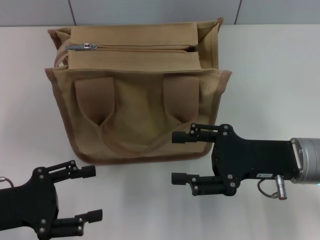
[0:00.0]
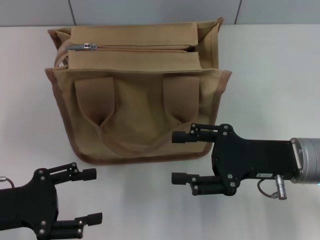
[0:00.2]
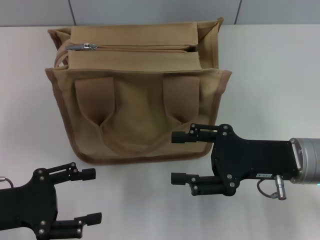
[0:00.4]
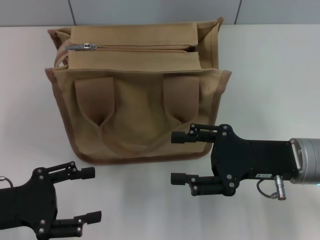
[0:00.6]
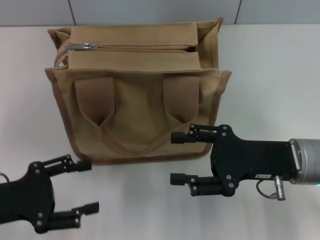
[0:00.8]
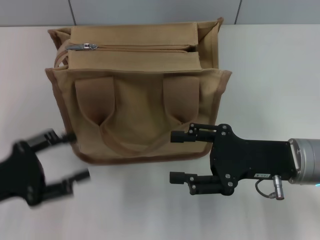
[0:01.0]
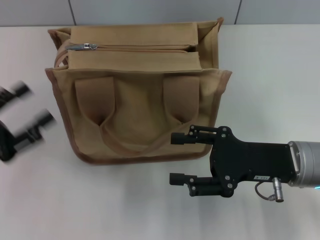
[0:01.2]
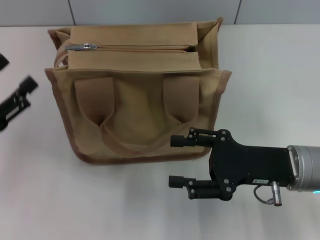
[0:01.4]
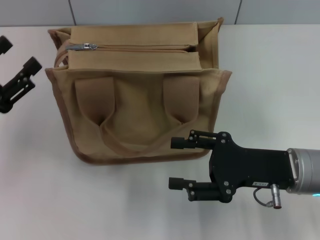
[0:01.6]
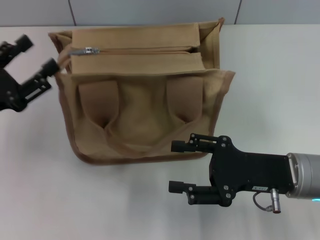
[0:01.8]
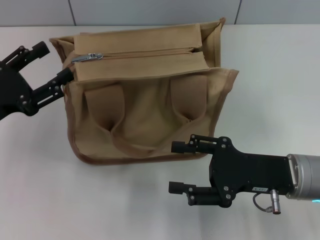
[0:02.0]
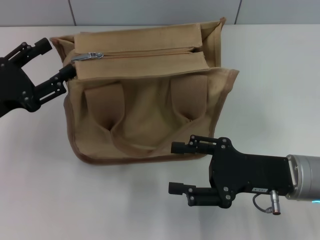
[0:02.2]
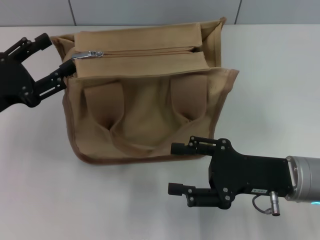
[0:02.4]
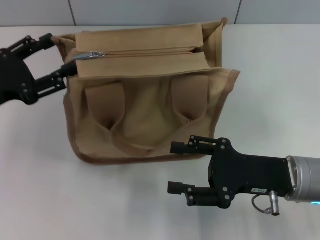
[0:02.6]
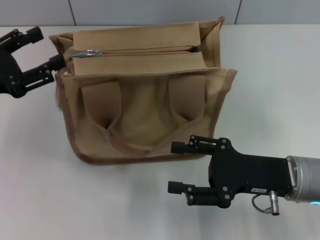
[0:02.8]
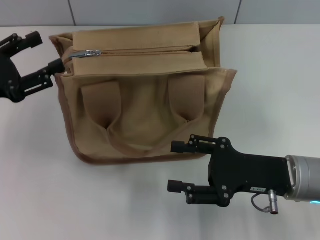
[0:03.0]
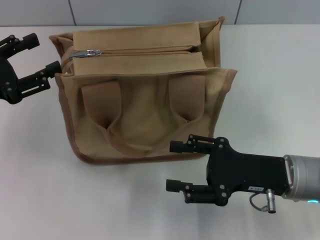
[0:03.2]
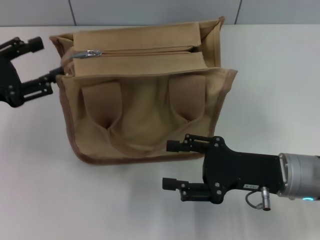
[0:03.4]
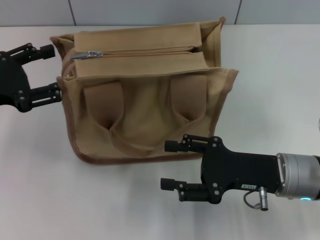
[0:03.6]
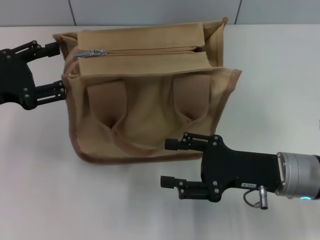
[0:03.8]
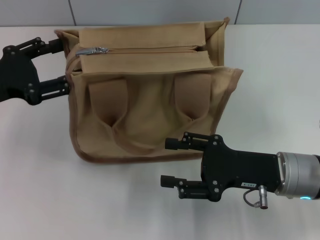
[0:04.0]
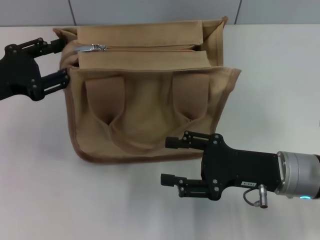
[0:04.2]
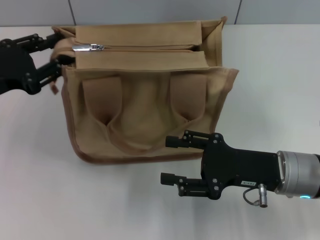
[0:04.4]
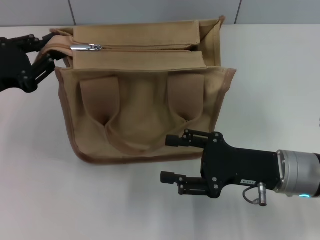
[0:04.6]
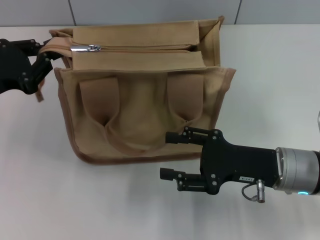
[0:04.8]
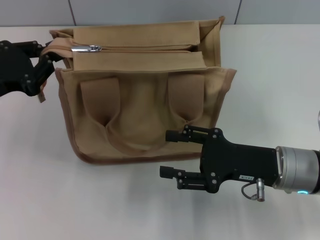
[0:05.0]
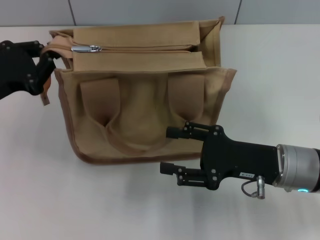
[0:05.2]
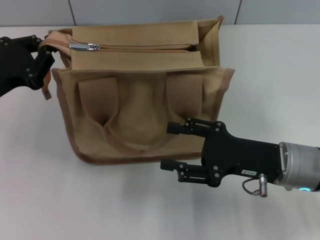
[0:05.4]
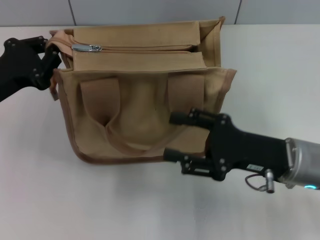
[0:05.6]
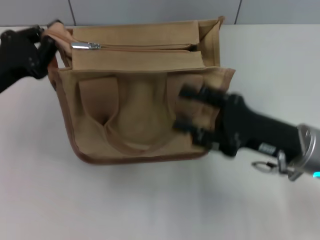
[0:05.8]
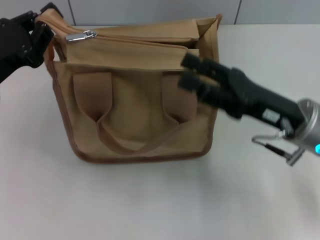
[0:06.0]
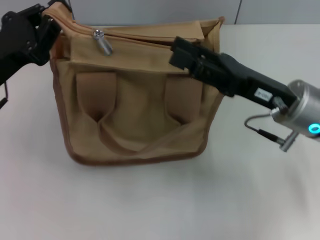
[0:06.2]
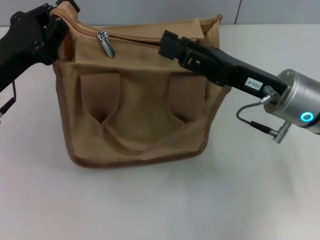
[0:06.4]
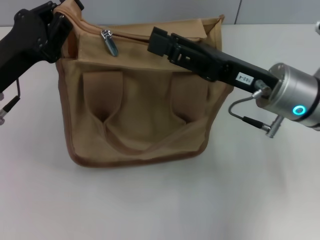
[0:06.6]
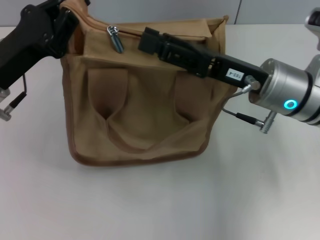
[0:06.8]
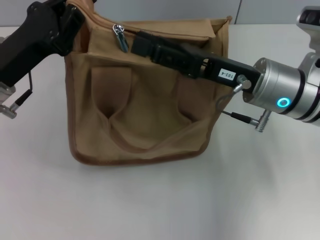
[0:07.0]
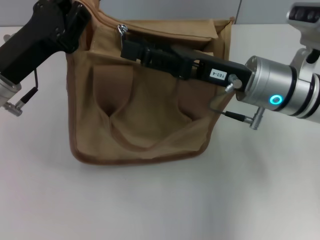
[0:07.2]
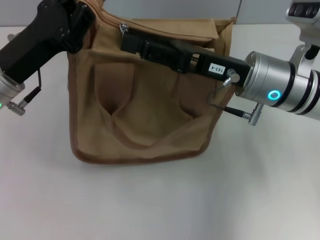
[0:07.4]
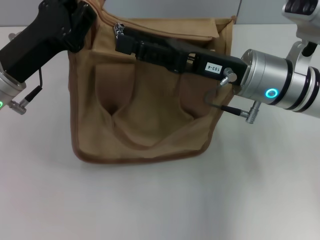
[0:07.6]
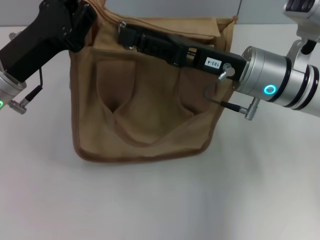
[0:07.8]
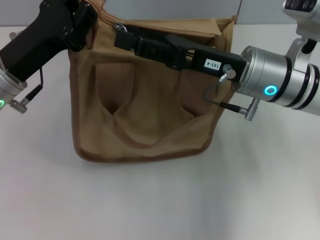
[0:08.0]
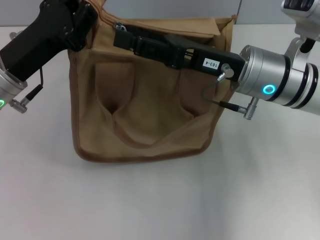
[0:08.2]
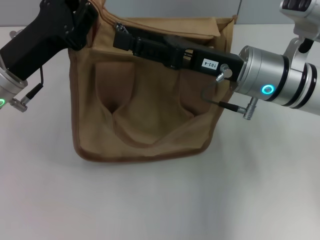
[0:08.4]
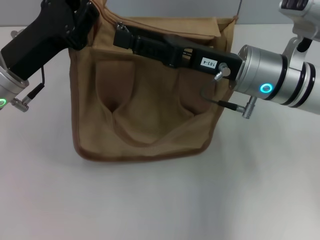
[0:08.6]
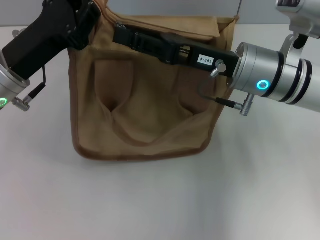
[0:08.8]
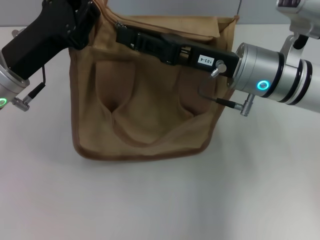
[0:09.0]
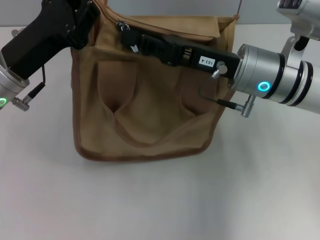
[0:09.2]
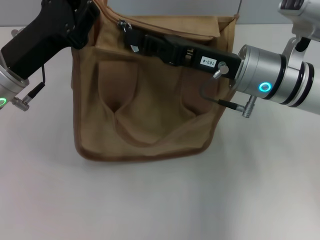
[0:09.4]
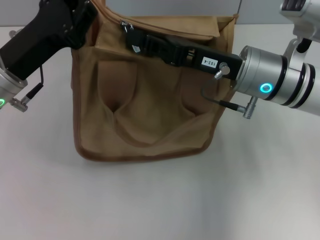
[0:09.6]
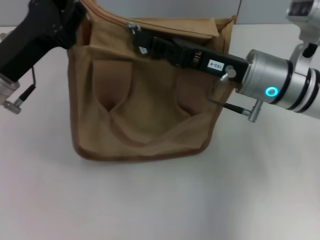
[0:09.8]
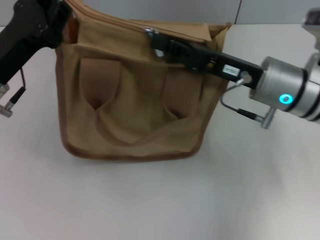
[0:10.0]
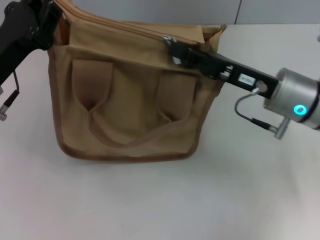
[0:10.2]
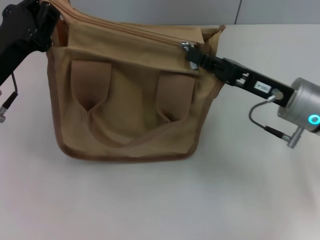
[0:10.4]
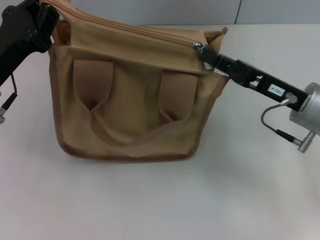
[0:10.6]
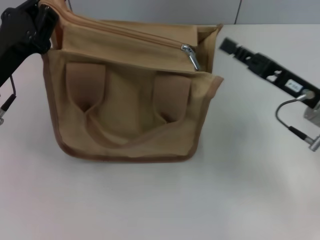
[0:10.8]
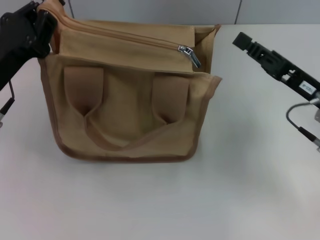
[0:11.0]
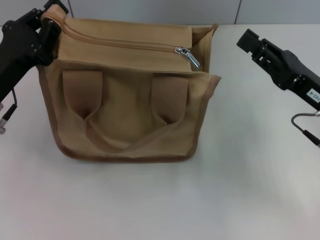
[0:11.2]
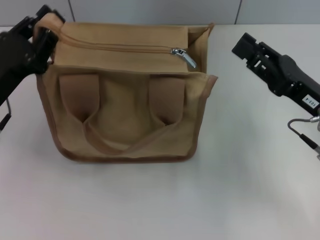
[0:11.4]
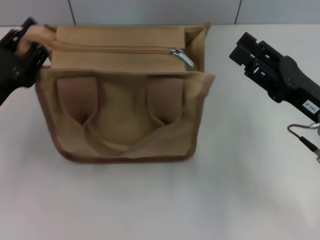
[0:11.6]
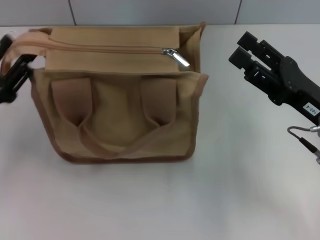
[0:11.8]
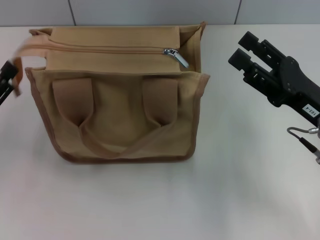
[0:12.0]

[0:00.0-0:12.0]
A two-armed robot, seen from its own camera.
Step, 0:00.0 to 0:11.0: Pull up the zipper with your right hand.
0:00.0 to 0:01.6: The left gripper moves about 5 cm.
0:01.6 to 0:03.0: The left gripper shifts by roughly 5 cm.
0:03.0 to 0:04.4: The grippers move only a little.
0:04.4 to 0:06.0: The right gripper shifts by some 5 cm. The left gripper closes.
0:06.0 to 0:07.6: The right gripper heads to the left and forward, covering about 10 cm, while the left gripper shifts by about 5 cm.
0:07.6 to 0:09.0: Both grippers stay put.
0:09.0 to 0:10.4: The right gripper goes approximately 5 cm to the right, and closes.
0:10.4 to 0:12.0: The right gripper shifts by approximately 5 cm, and opens up; the left gripper is displaced backward, to the left and downward by about 10 cm, and opens.

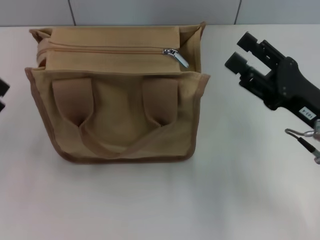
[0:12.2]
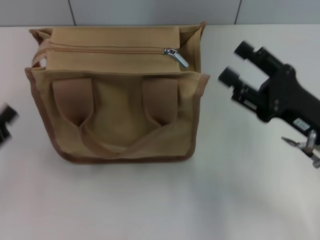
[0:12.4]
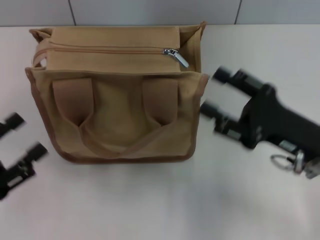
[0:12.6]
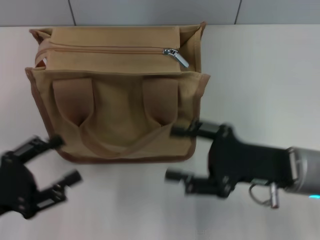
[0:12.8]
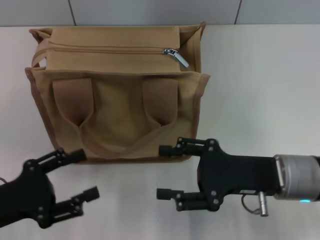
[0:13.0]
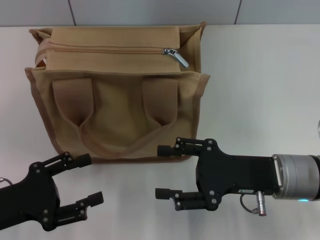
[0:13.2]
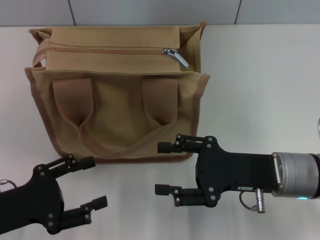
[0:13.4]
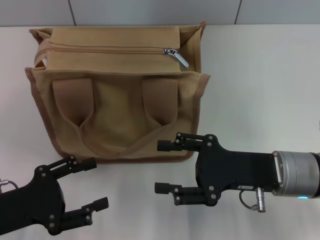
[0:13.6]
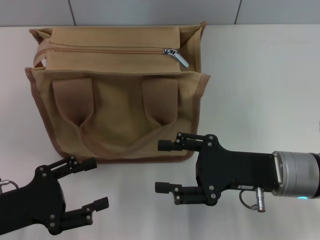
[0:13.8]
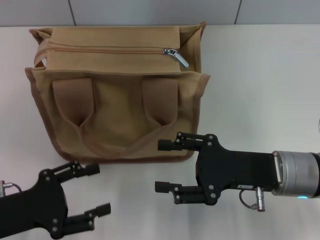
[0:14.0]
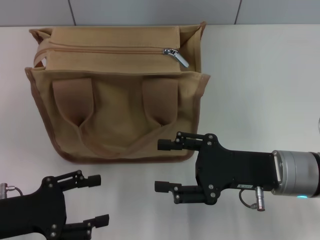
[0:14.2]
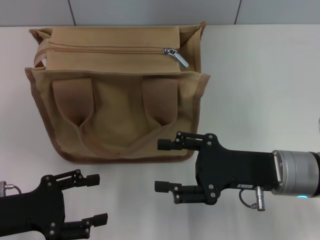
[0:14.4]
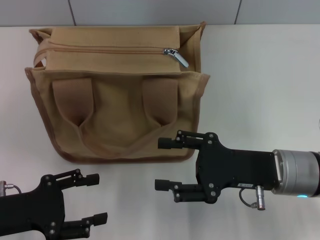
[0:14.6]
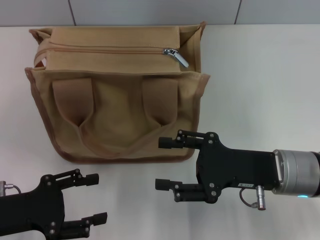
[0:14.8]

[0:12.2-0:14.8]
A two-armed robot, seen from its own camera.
0:12.2 to 0:13.4: The right gripper heads to the left, covering roughly 5 cm.
0:13.4 to 0:14.8: The grippers make only small movements.

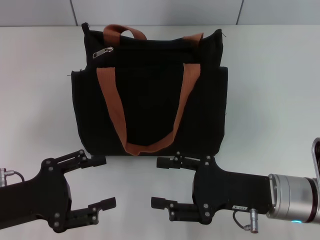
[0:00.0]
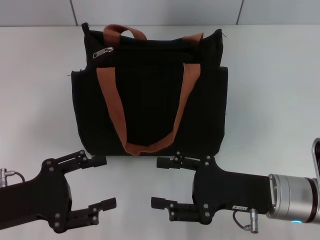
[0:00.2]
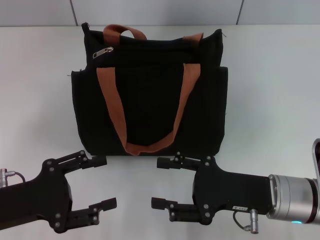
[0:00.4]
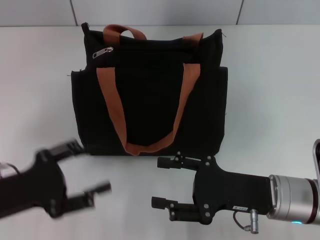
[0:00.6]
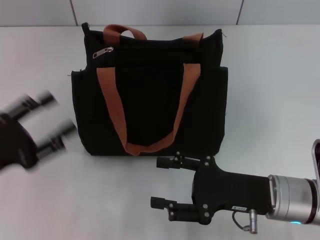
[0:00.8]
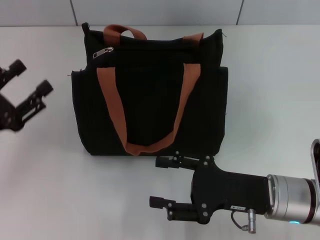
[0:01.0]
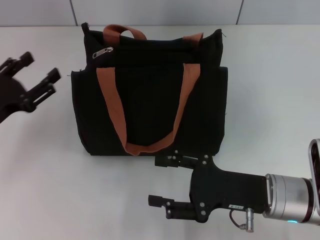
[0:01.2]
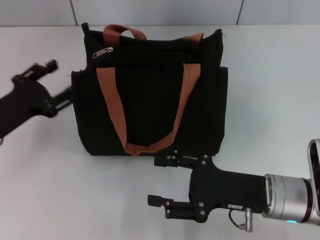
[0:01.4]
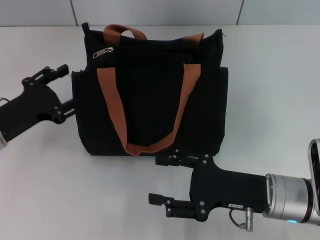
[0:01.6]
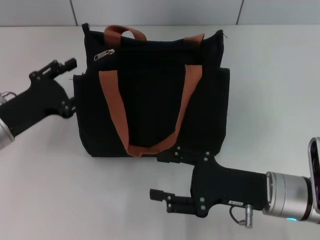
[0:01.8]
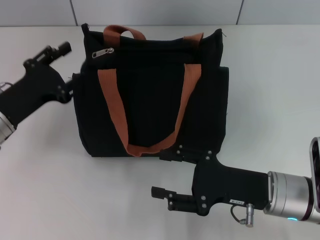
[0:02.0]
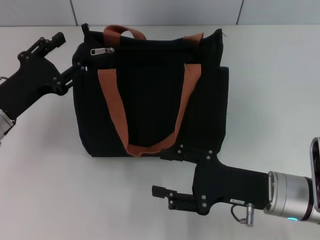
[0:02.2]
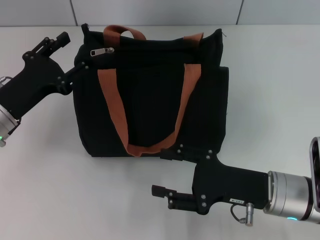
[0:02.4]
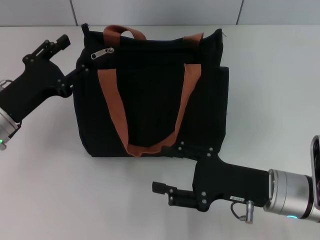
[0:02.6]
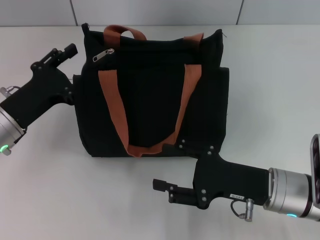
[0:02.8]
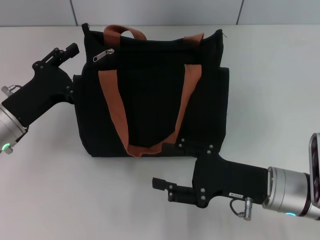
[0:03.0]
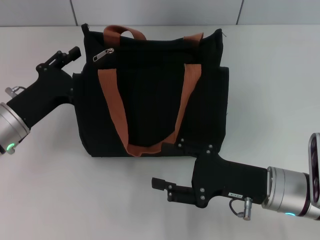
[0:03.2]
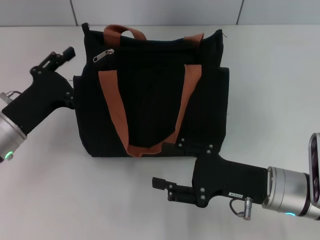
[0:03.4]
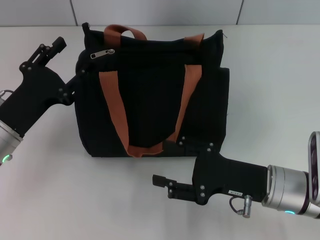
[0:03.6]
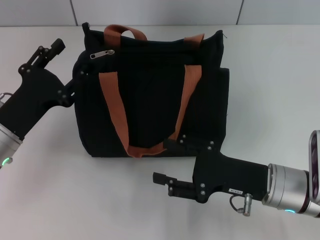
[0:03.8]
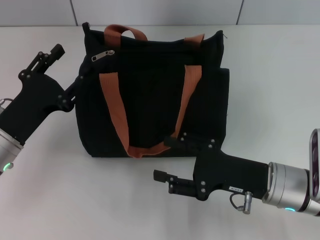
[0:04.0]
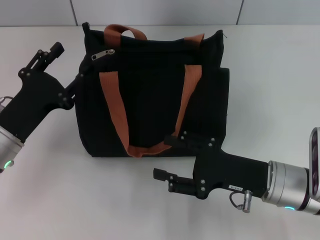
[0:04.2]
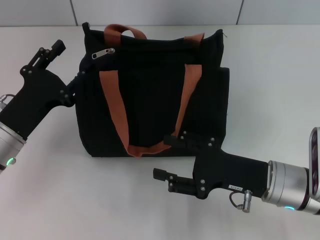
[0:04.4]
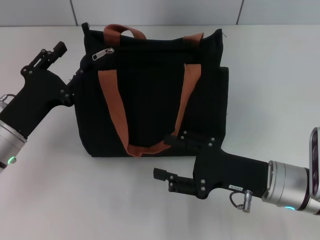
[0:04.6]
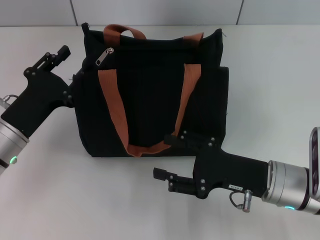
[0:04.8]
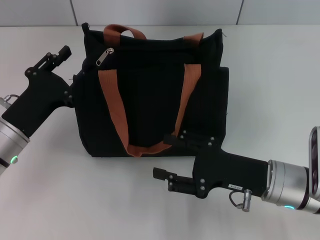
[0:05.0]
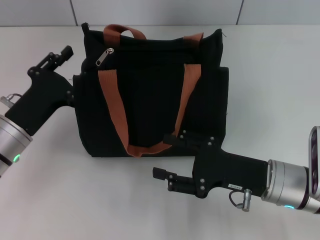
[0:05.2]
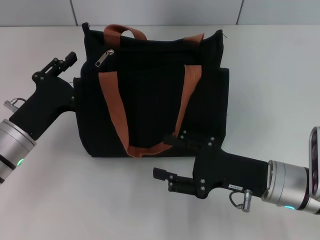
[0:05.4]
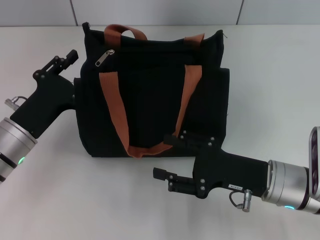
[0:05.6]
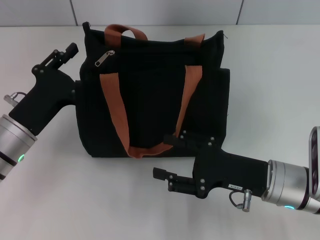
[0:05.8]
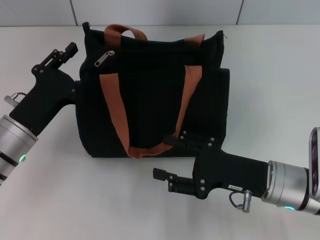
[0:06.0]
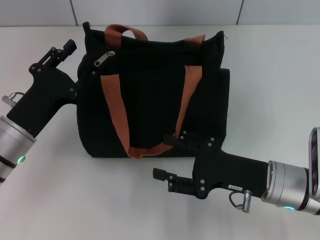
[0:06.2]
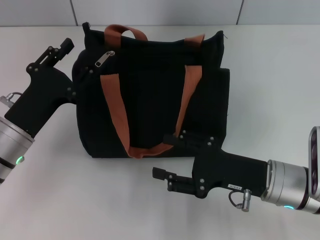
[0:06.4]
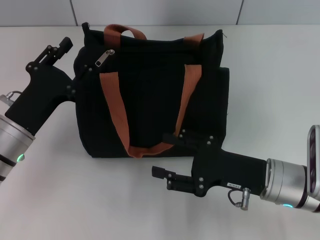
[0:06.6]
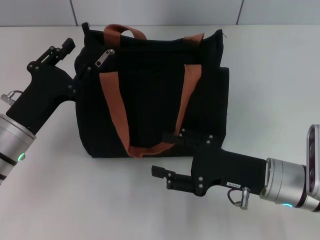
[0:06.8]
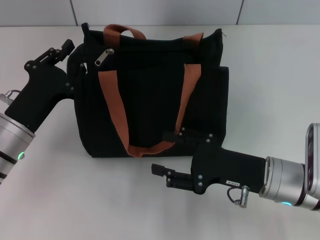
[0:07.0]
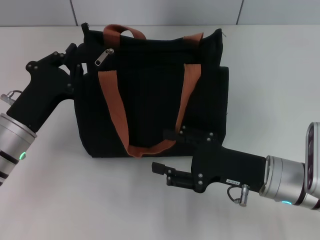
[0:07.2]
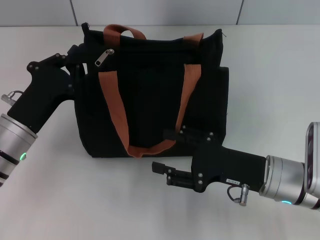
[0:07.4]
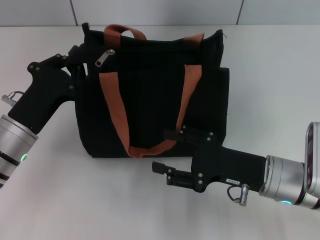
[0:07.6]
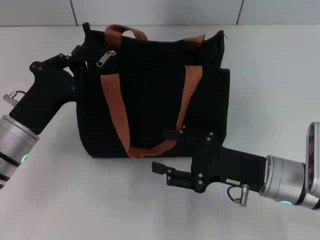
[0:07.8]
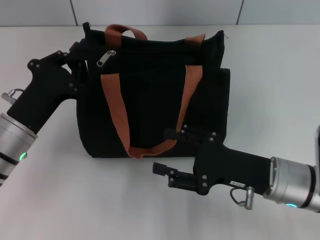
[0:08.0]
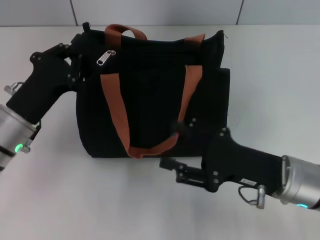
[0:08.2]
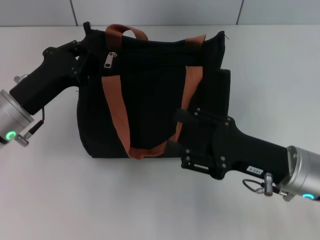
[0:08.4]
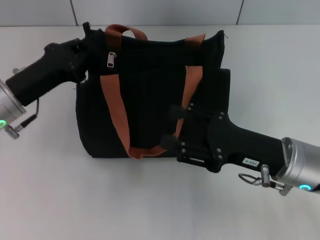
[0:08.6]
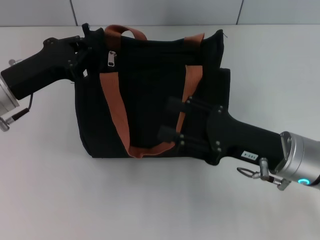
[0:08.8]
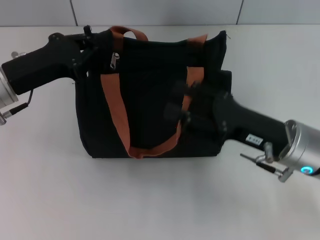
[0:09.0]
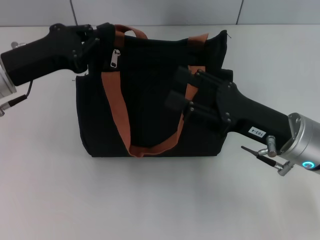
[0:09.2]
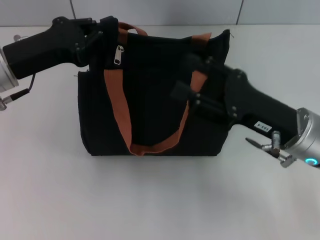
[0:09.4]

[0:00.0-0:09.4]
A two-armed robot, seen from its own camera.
0:00.0 to 0:01.6: The left gripper is displaced forward by roughly 10 cm.
0:01.6 to 0:04.8: The grippers stay close to where they were, moving slightly.
0:04.8 to 0:06.2: Neither gripper changes place.
0:06.2 to 0:07.8: The left gripper closes up.
0:07.8 to 0:09.4: The left gripper is displaced upward and forward by some 10 cm; the right gripper moves upward, about 5 cm.
